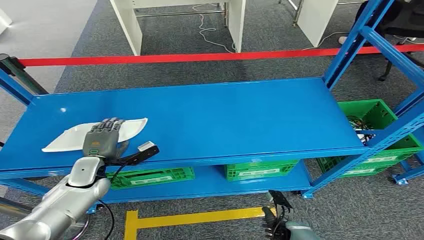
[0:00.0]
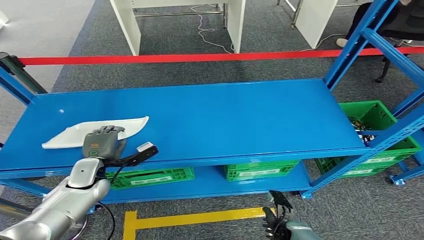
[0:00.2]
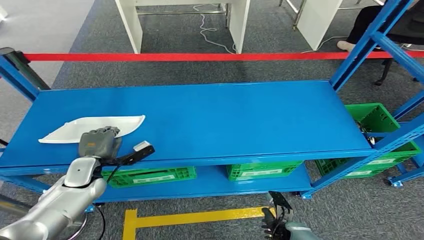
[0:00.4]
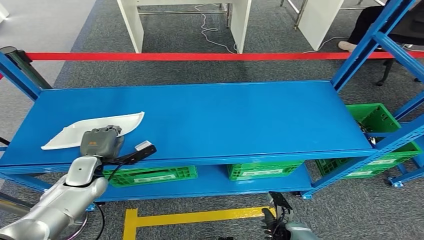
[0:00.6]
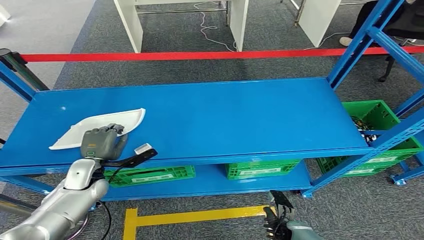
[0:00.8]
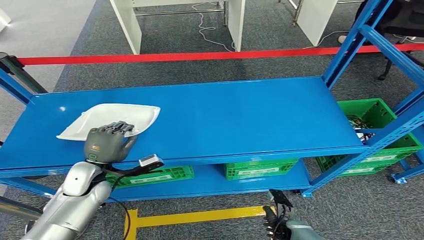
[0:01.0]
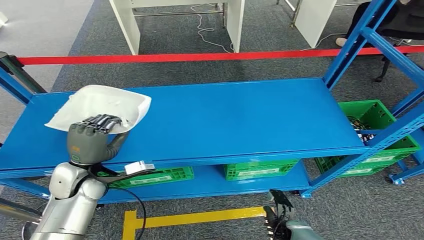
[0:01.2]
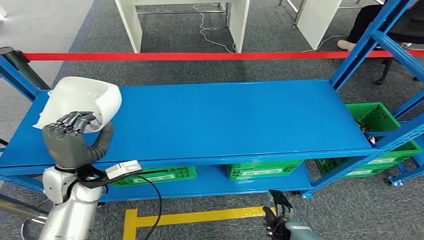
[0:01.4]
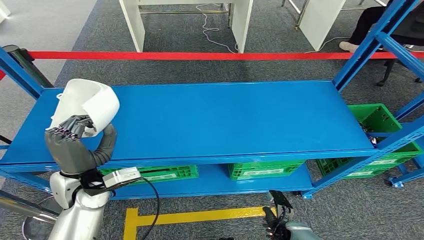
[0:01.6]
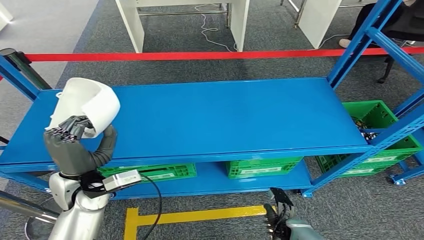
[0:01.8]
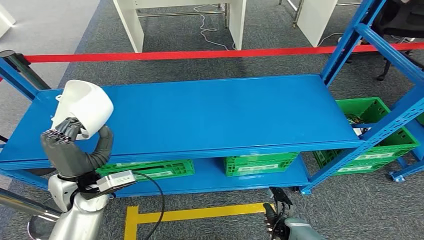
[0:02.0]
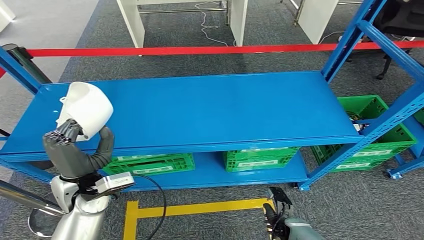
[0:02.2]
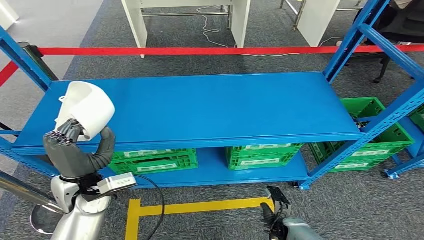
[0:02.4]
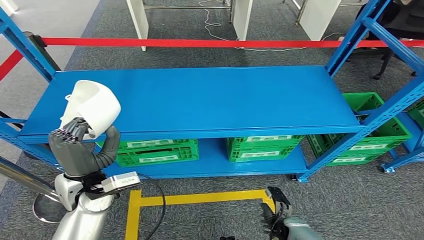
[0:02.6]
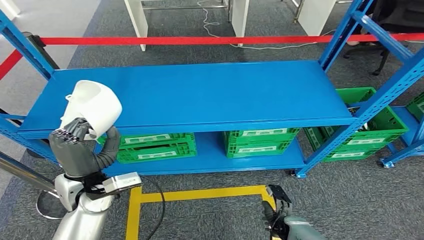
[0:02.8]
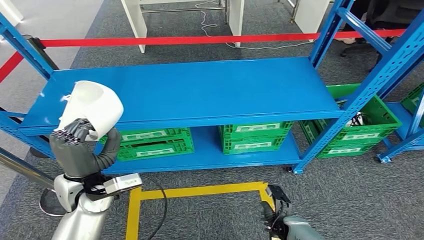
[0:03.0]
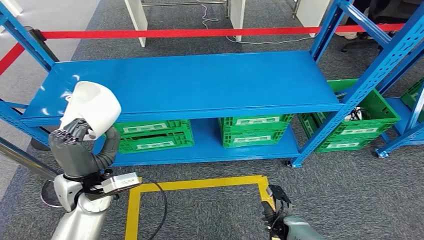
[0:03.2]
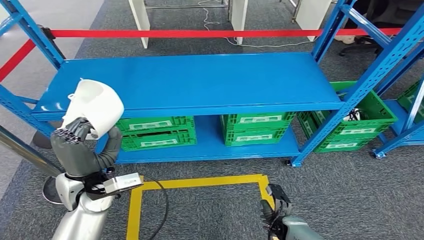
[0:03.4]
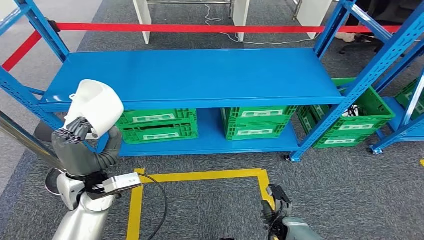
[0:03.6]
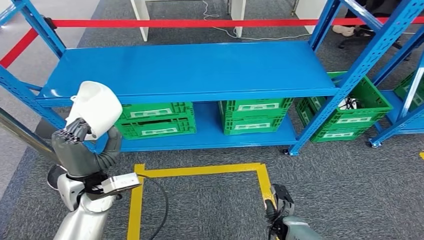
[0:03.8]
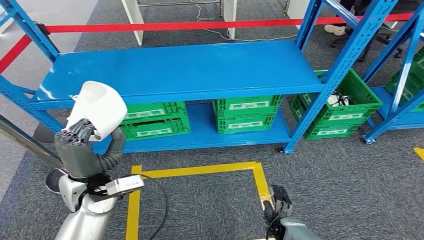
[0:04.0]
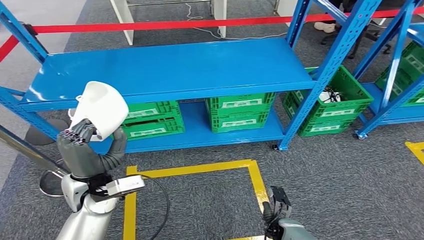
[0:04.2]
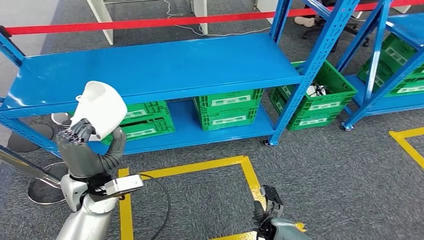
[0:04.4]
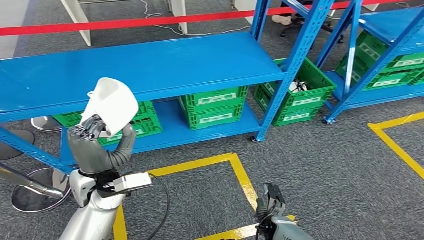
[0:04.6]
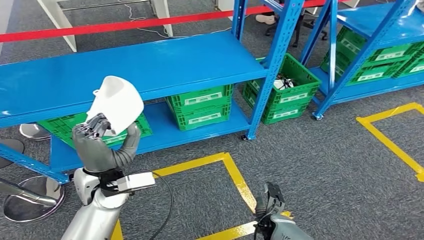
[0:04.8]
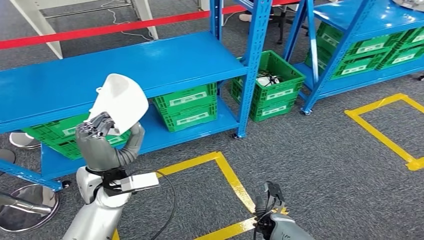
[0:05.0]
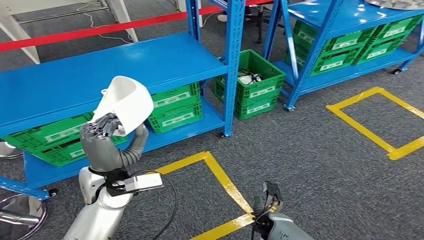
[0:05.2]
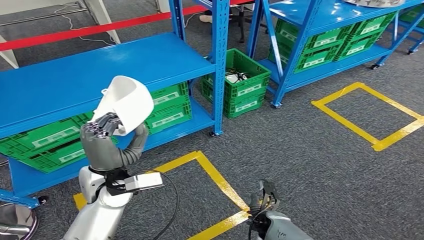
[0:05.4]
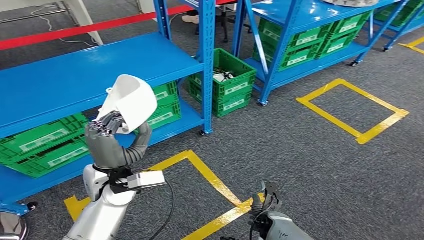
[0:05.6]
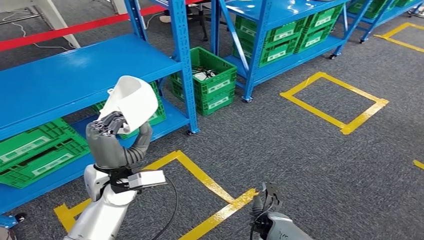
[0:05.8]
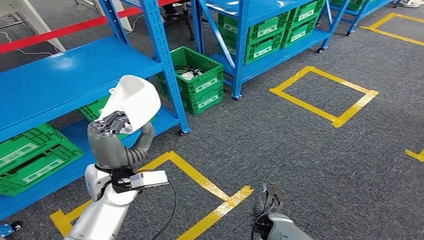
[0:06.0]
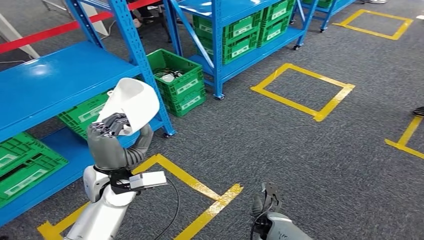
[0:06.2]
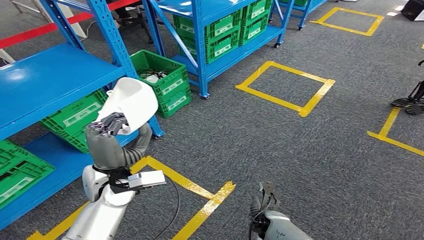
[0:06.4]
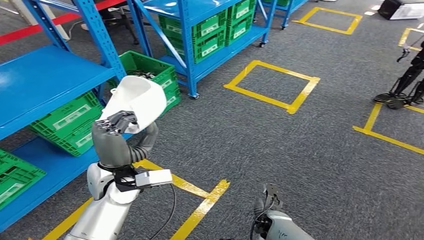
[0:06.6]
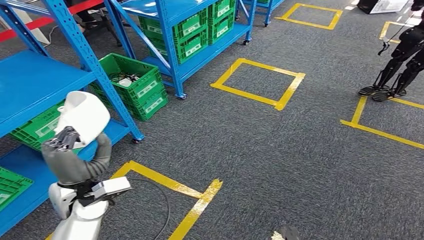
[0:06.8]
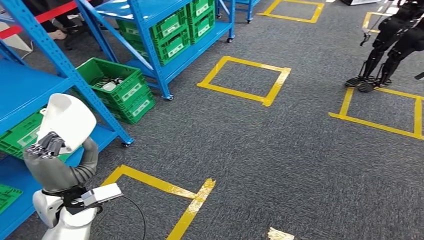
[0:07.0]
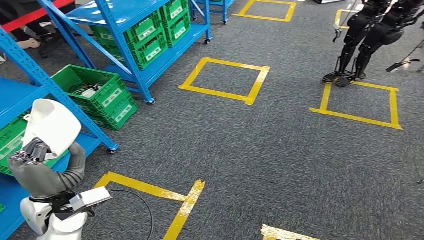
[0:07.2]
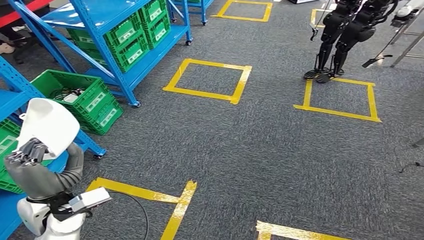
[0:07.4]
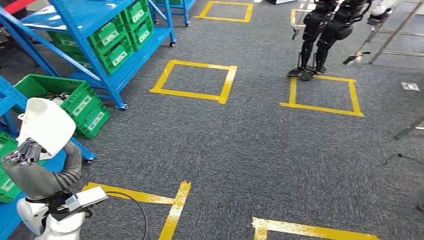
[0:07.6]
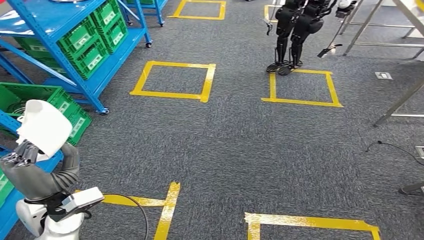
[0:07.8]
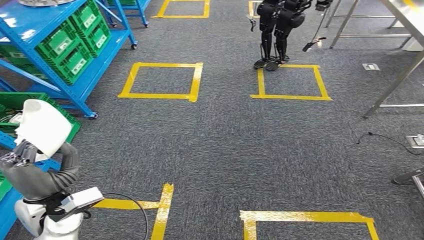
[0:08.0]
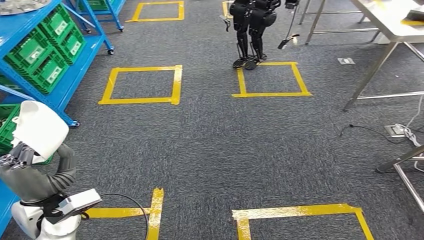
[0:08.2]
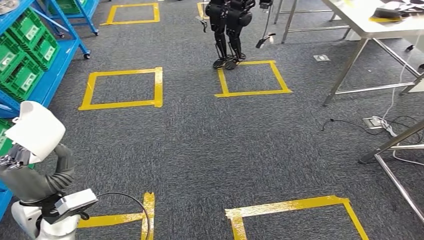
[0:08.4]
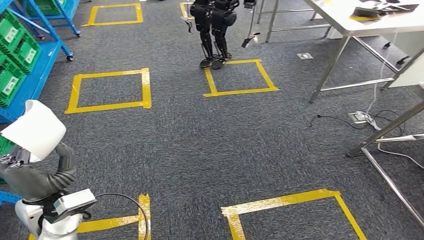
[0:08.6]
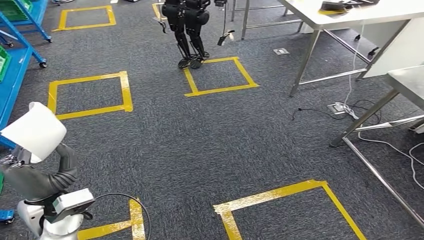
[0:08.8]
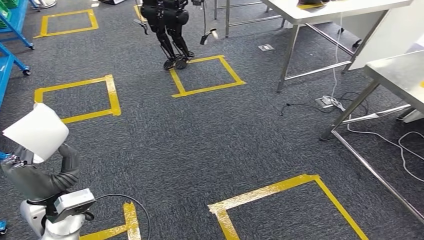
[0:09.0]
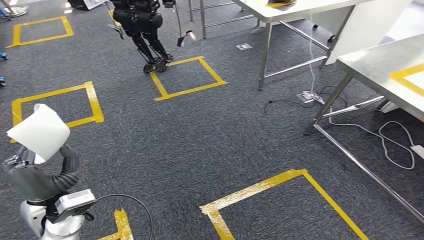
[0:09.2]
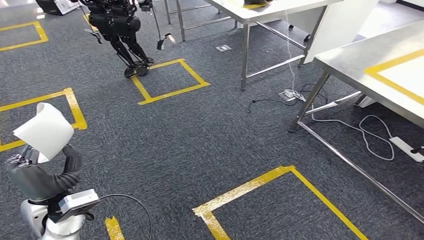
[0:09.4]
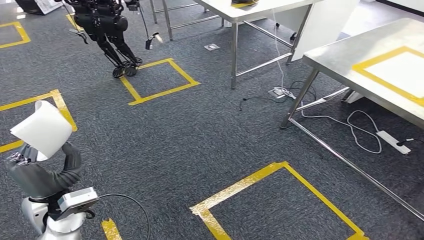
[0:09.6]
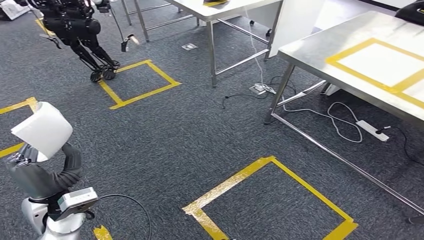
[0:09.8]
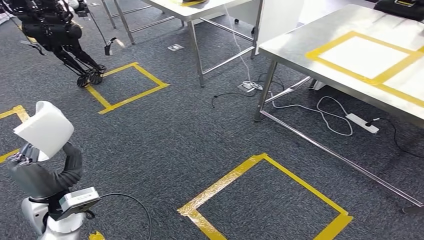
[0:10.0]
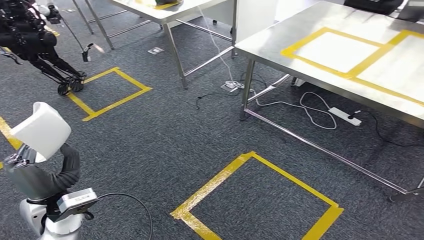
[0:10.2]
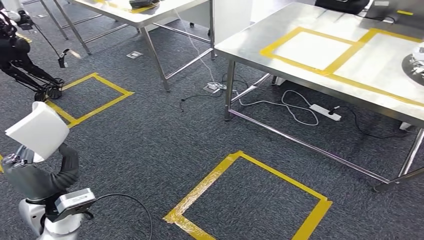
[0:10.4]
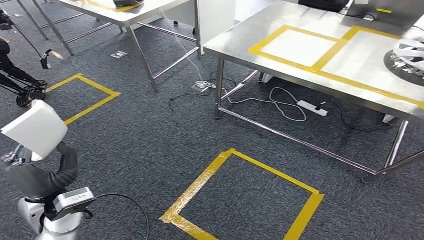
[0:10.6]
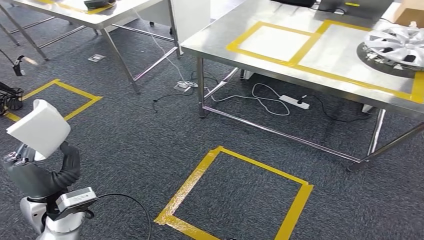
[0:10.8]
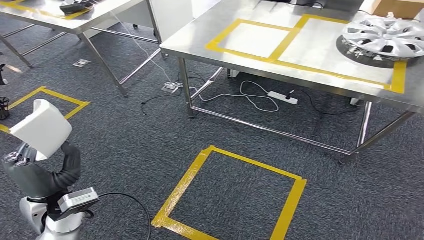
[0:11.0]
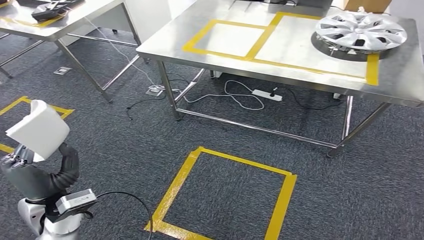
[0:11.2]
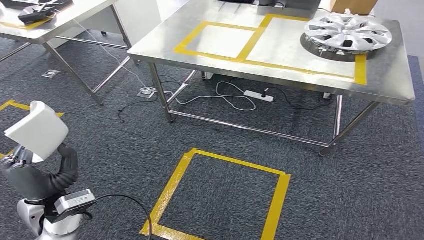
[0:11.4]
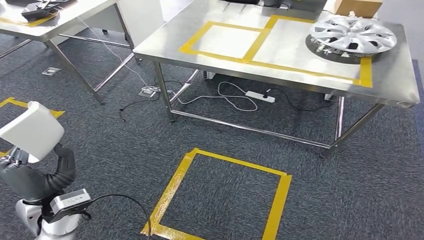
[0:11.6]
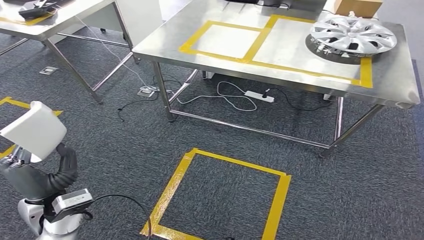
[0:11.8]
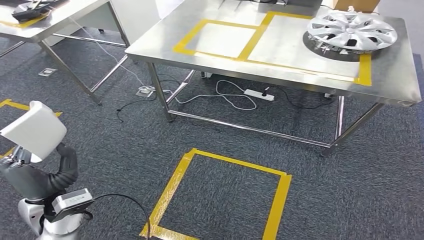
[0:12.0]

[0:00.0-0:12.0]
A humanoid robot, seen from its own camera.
Step, 0:00.0 to 0:04.0: Pick up the small component from the shelf.

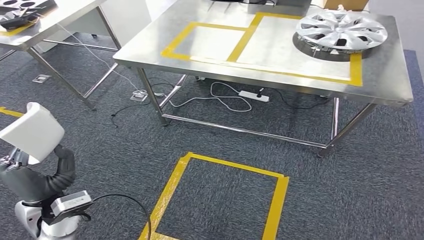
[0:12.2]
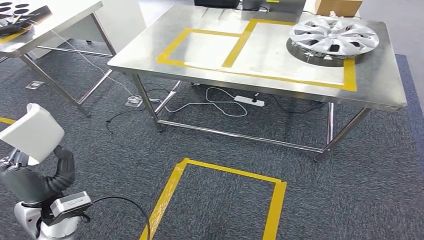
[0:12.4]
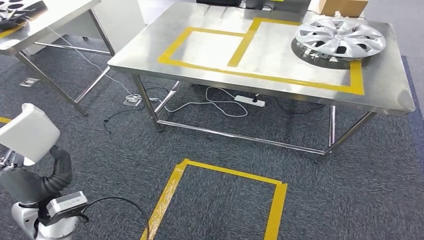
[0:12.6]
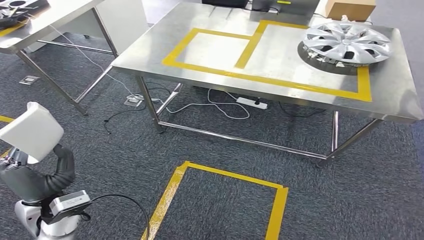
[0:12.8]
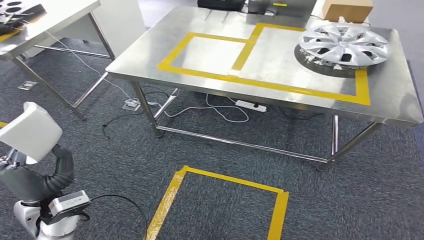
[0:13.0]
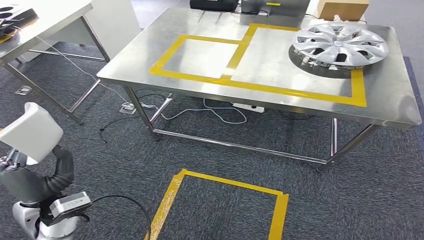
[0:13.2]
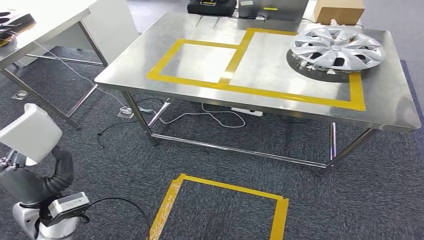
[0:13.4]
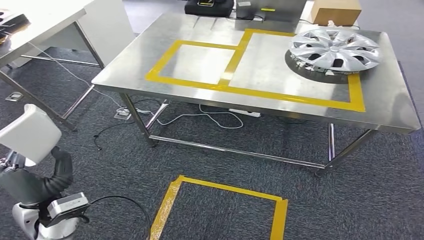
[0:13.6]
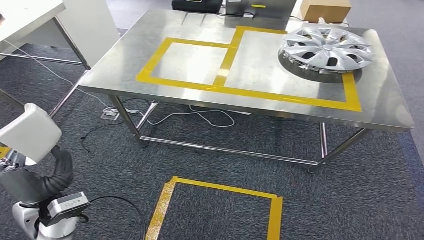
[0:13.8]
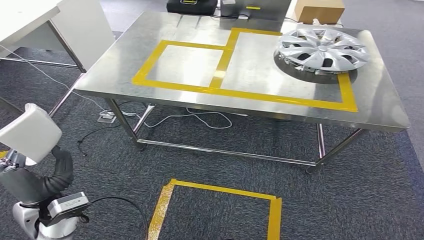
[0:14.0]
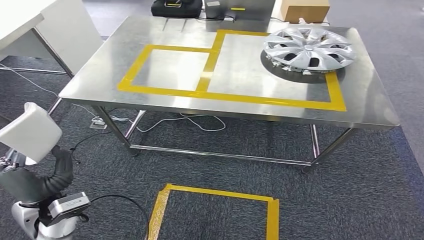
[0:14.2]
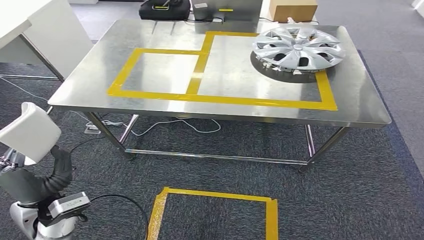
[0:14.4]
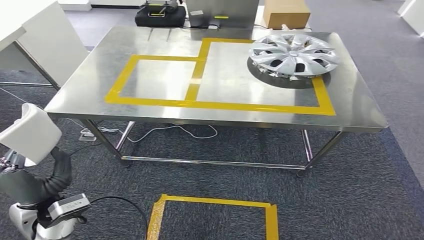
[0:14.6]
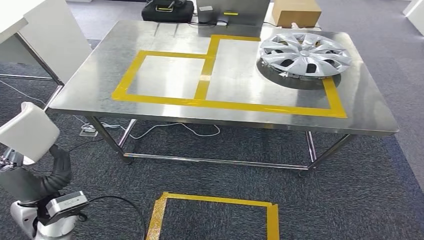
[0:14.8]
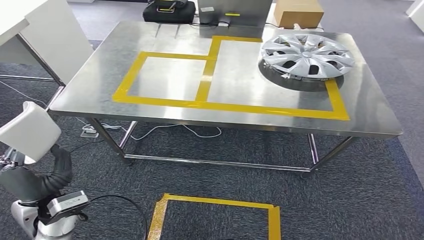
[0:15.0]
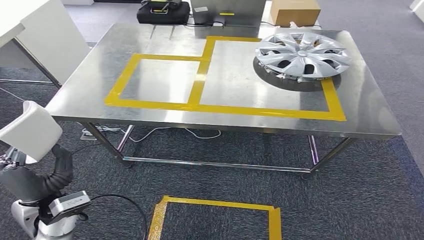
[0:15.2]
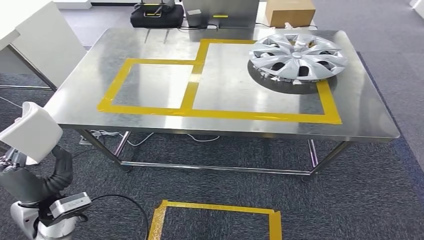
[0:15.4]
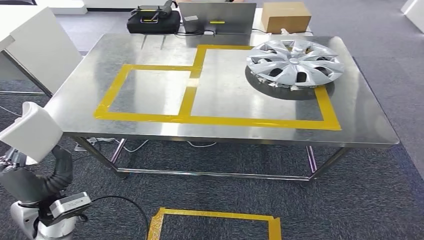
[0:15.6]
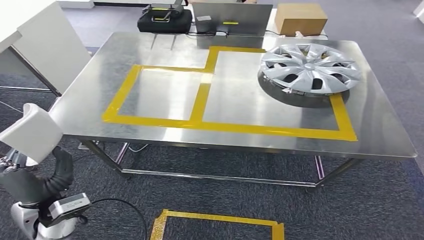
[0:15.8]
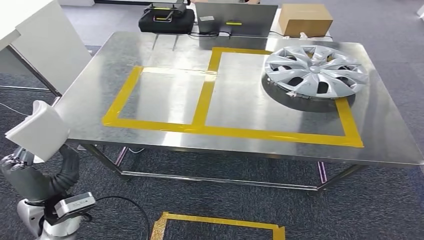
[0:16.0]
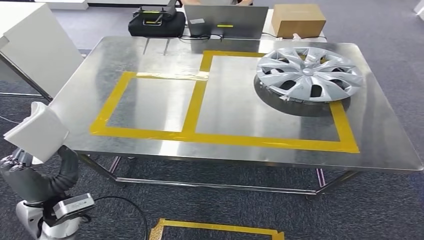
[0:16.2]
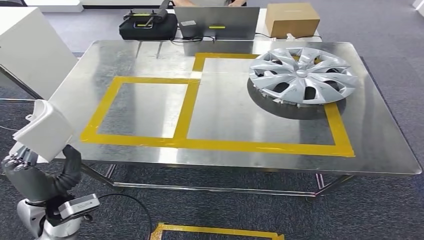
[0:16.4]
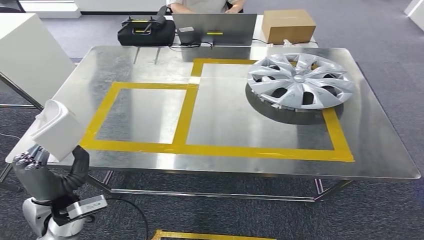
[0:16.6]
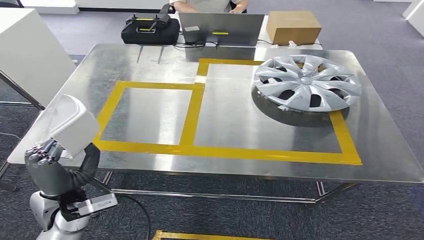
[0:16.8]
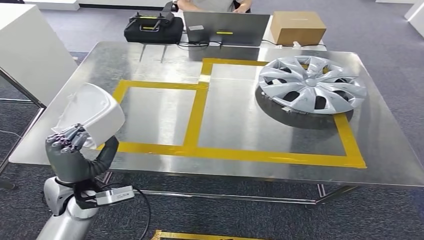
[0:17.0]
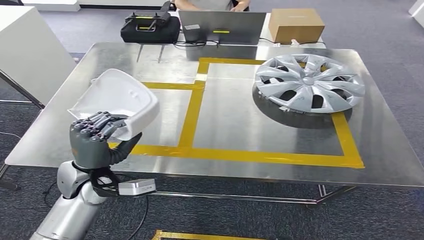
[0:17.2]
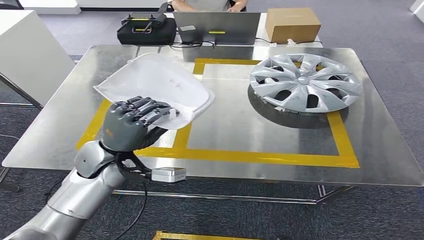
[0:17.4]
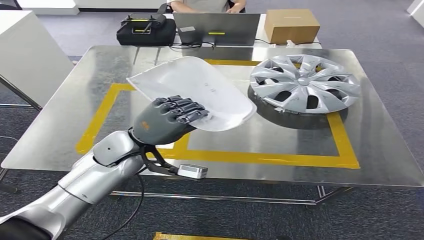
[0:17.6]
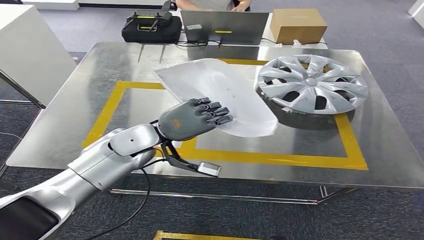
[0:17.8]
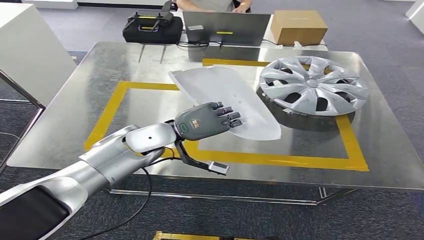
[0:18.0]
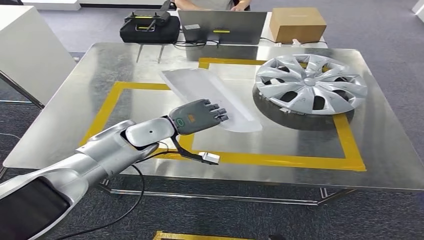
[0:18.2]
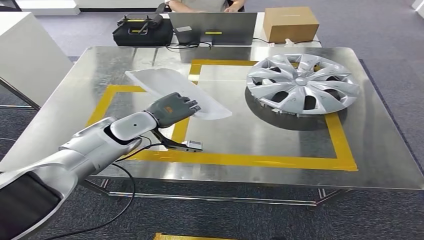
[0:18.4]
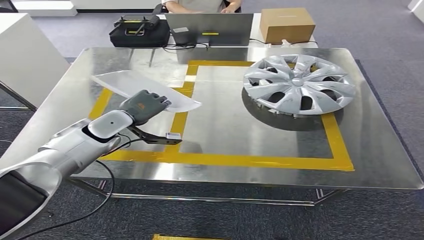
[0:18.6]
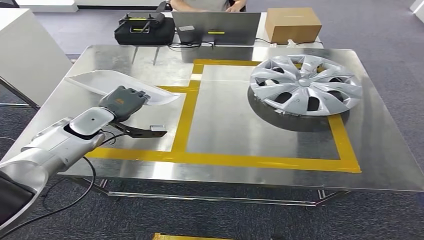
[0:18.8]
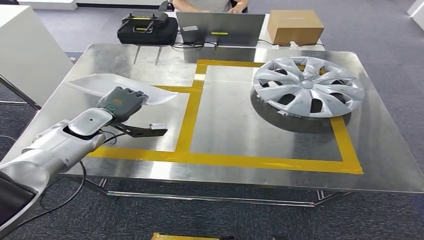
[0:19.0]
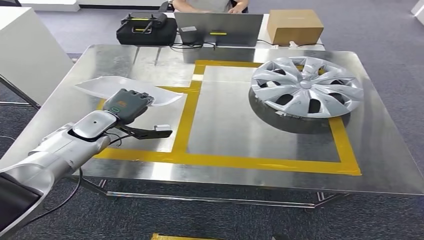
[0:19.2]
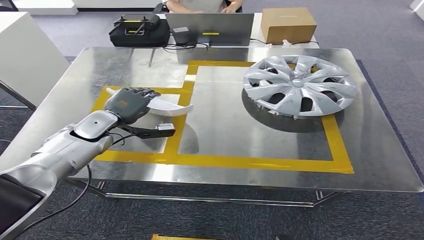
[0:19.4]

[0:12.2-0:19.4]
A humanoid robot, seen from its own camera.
Step, 0:12.2 to 0:15.4: Move the small component to the workbench.
